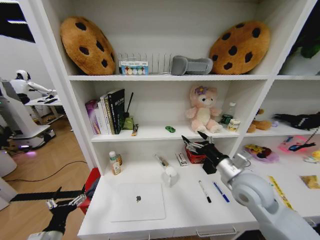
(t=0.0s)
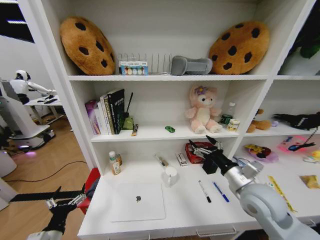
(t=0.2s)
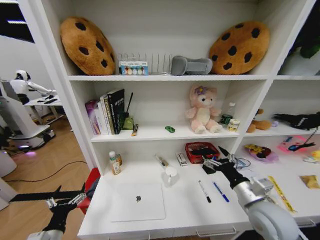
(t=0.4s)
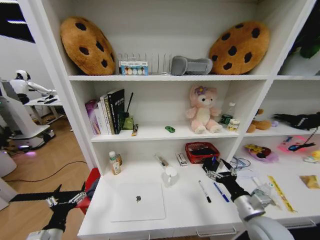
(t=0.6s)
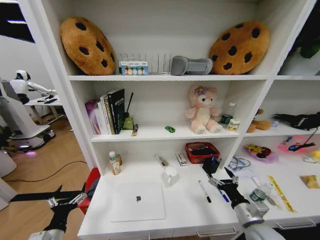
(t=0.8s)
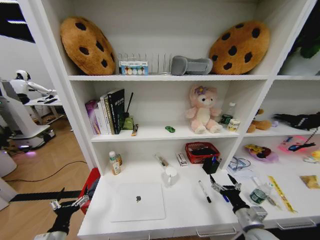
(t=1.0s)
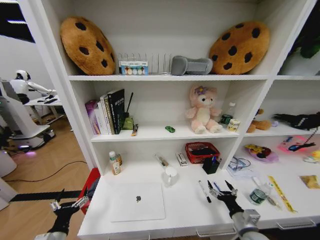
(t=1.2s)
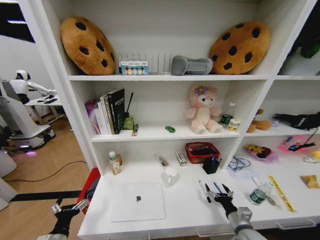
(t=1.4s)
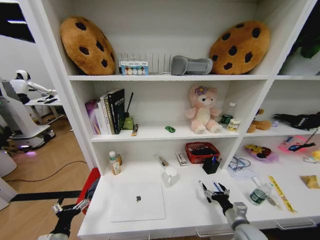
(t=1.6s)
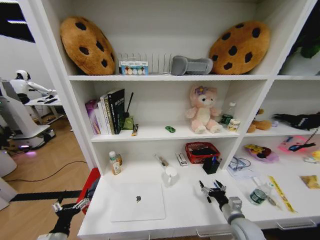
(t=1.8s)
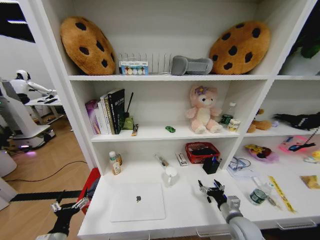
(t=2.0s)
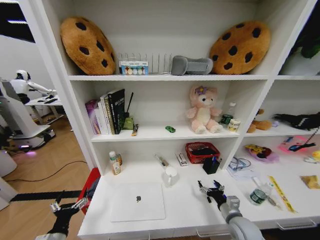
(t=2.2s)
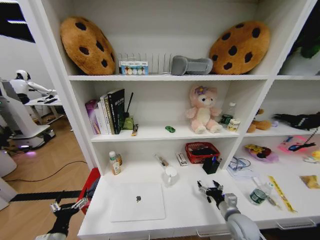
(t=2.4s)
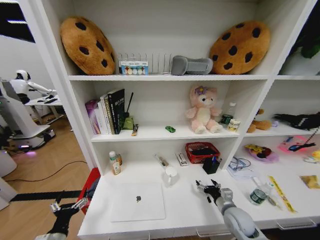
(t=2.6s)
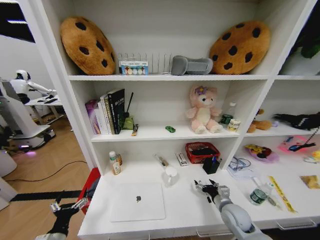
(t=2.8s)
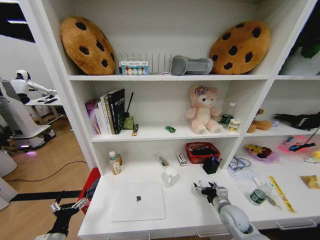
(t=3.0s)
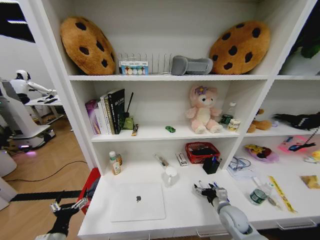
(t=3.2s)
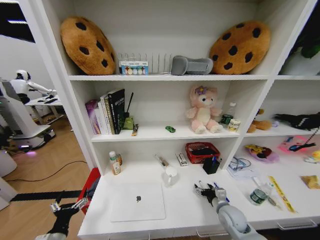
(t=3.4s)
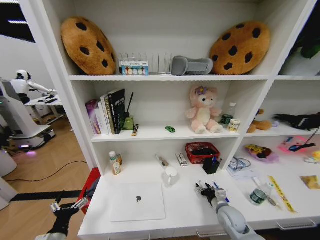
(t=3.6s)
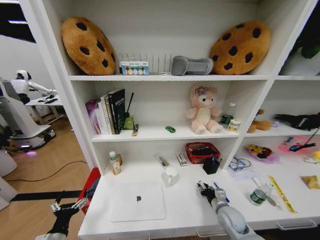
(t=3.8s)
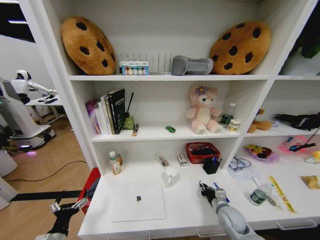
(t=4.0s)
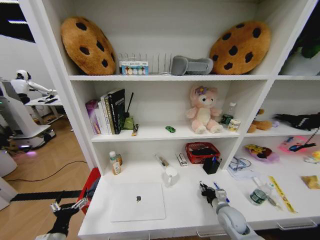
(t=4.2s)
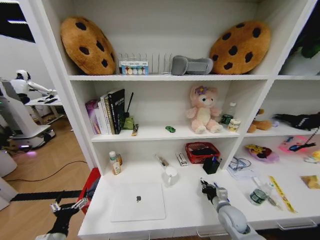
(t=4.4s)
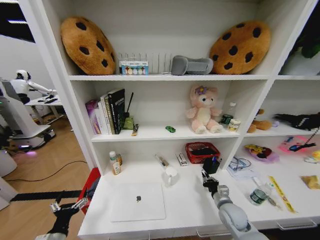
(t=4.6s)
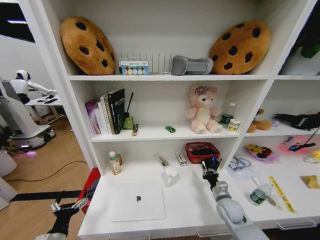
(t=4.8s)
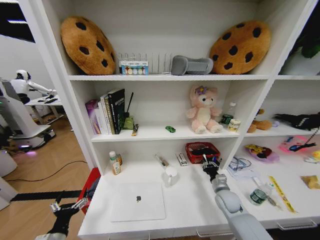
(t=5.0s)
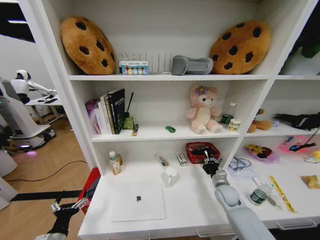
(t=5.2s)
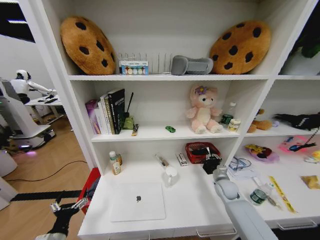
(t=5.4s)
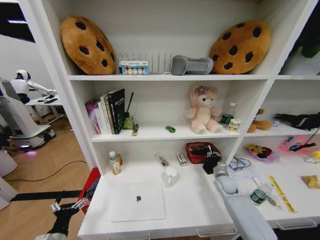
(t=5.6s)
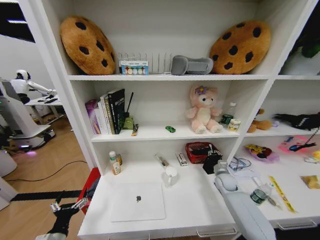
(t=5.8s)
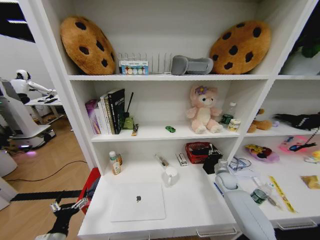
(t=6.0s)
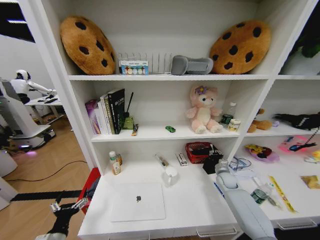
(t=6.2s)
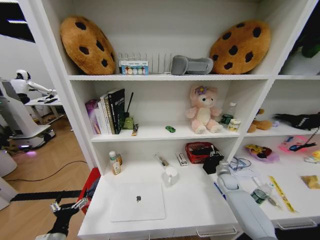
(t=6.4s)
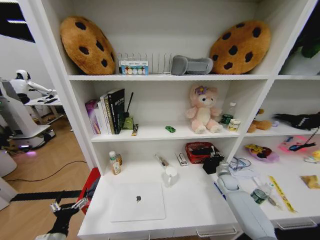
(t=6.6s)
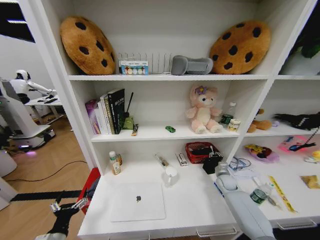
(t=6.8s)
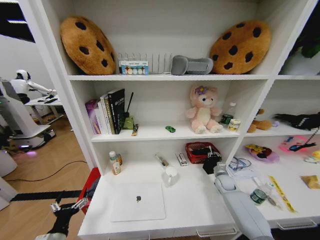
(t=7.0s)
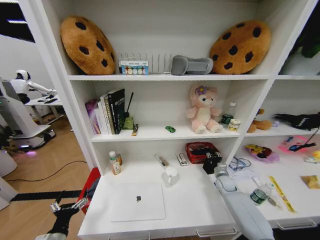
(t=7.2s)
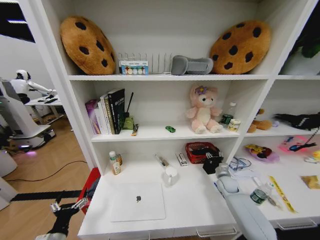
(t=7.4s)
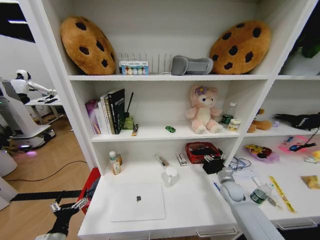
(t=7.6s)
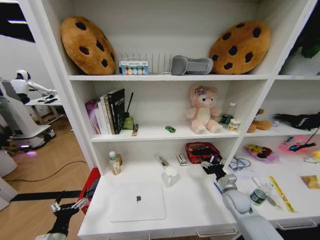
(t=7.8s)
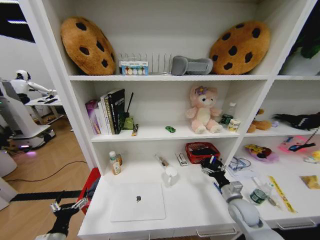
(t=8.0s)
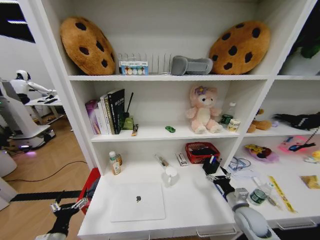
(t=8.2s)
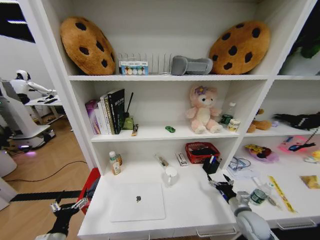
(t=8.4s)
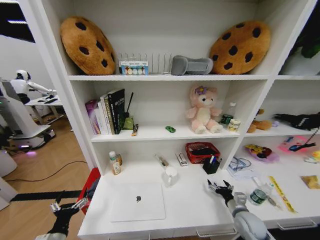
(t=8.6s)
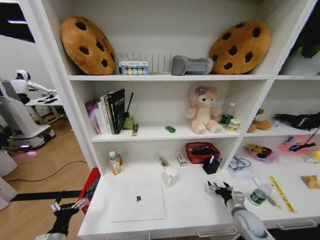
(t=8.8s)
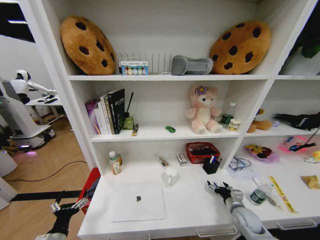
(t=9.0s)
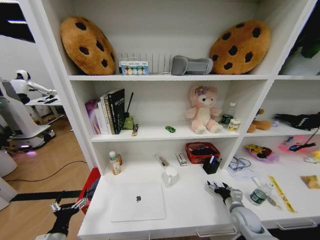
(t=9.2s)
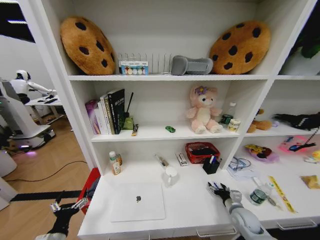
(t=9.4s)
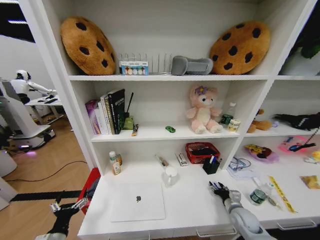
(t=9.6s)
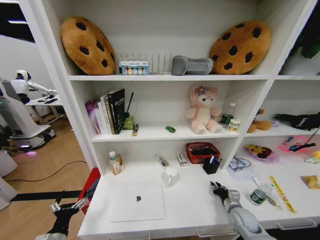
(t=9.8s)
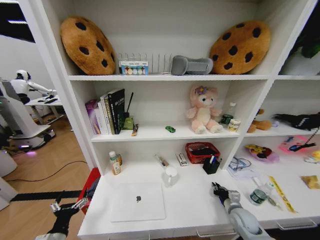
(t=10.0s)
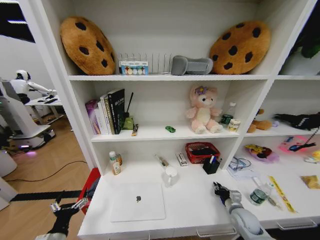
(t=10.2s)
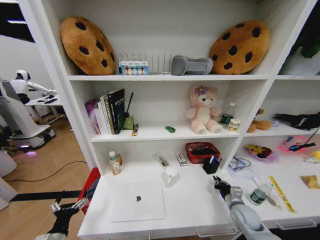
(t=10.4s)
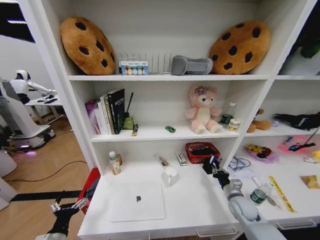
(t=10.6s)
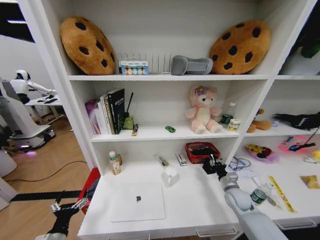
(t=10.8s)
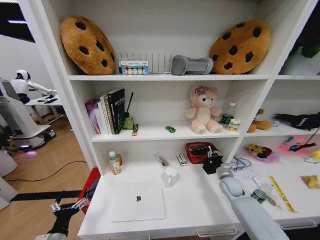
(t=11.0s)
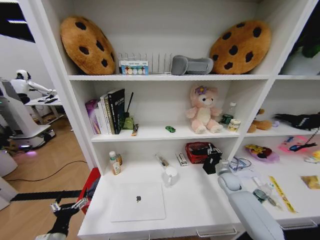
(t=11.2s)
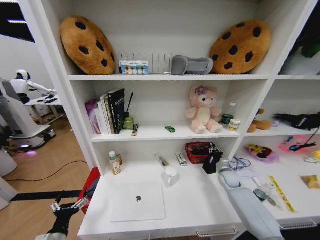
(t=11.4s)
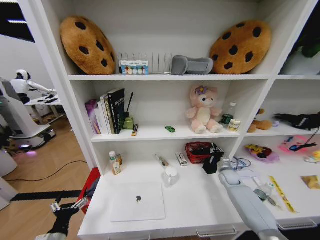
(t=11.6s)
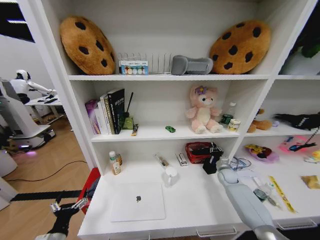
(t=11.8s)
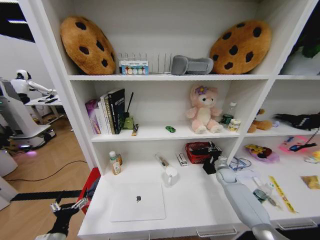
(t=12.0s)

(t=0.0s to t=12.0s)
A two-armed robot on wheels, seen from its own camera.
Task of the whole recording: Organize the objects on the table.
t=0.0s - t=1.6s: The right gripper goes about 25 cm downward.
t=1.6s - t=3.0s: The right gripper moves forward, approximately 5 cm.
t=3.0s - t=4.4s: The right gripper closes up.
t=4.4s - t=6.0s: The right gripper travels forward and to the right by about 20 cm.
t=6.0s - t=7.6s: The right gripper travels backward by some 5 cm, and opens.
t=7.6s - t=9.0s: The right gripper is displaced backward by approximately 10 cm.
t=9.0s - t=10.4s: The right gripper closes.
t=10.4s - t=12.0s: The right gripper moves forward, some 20 cm.

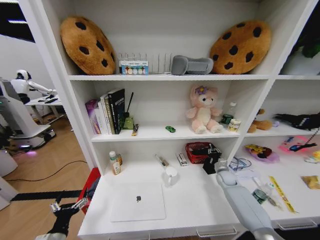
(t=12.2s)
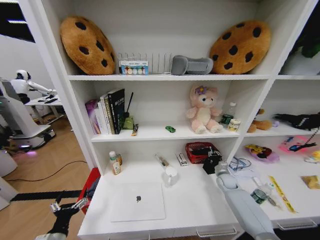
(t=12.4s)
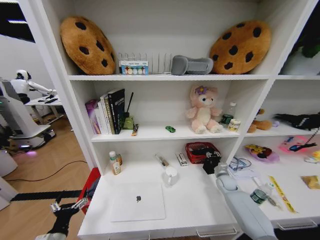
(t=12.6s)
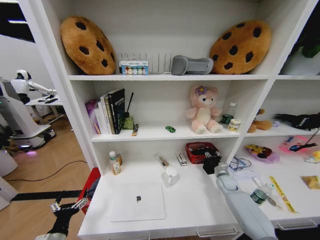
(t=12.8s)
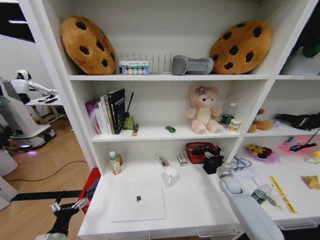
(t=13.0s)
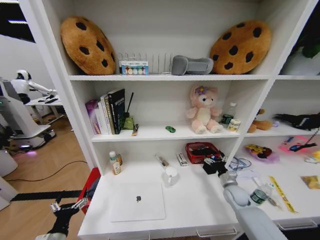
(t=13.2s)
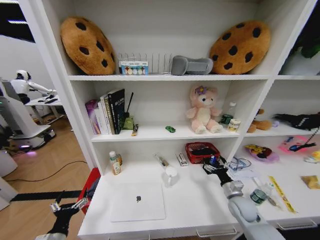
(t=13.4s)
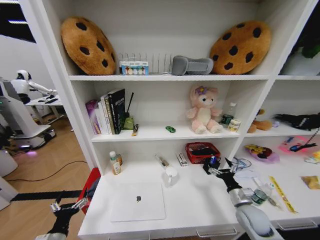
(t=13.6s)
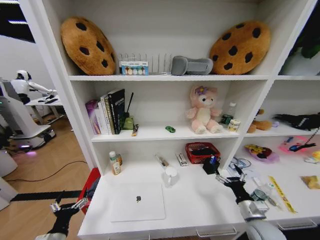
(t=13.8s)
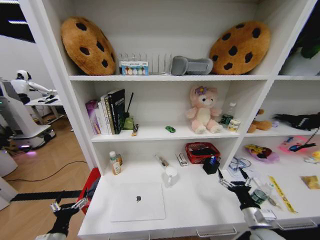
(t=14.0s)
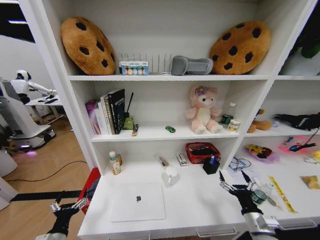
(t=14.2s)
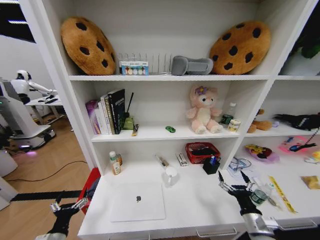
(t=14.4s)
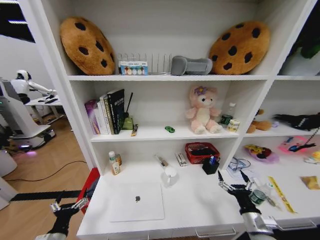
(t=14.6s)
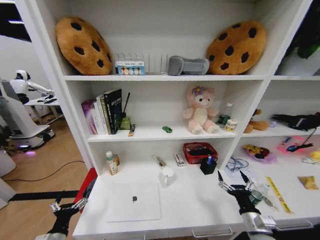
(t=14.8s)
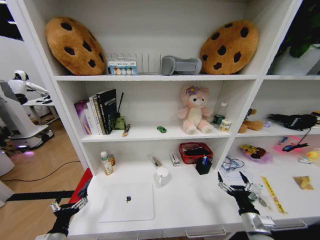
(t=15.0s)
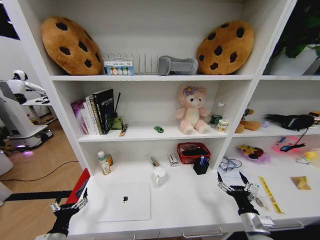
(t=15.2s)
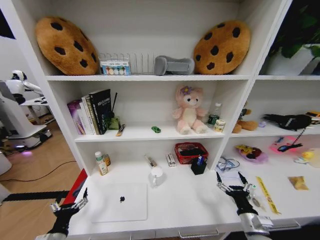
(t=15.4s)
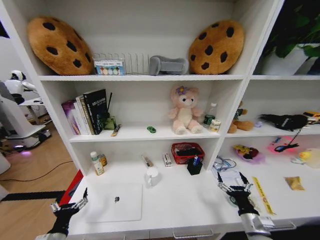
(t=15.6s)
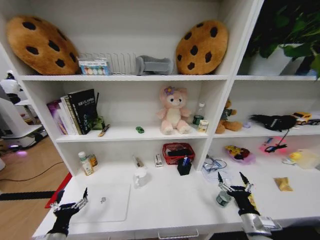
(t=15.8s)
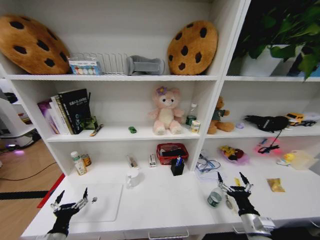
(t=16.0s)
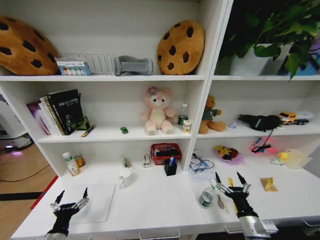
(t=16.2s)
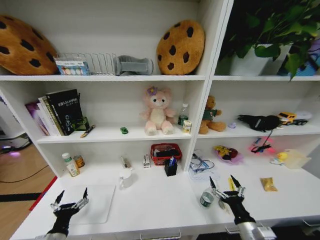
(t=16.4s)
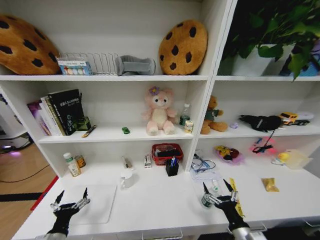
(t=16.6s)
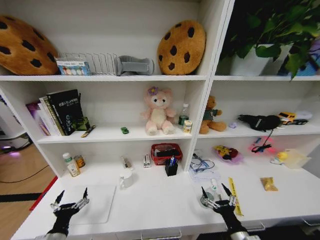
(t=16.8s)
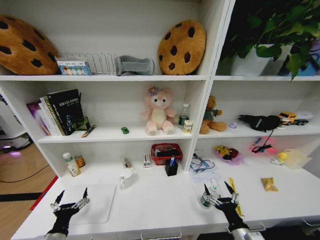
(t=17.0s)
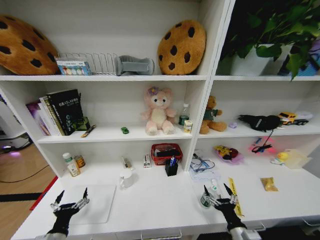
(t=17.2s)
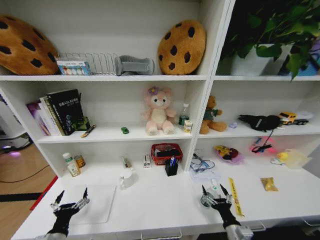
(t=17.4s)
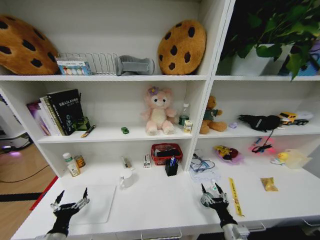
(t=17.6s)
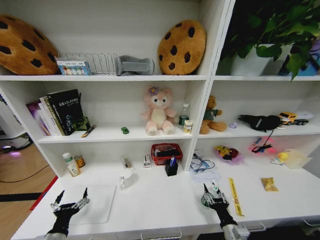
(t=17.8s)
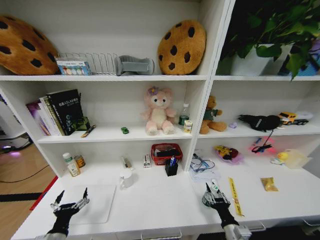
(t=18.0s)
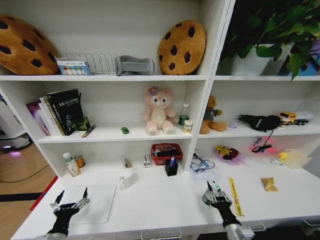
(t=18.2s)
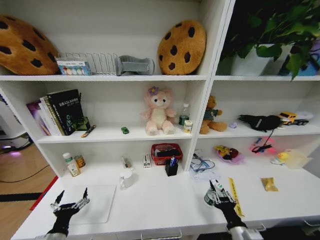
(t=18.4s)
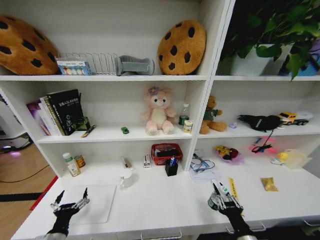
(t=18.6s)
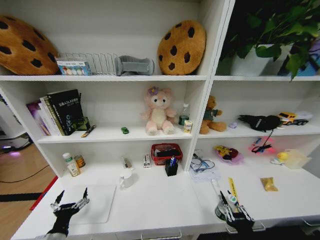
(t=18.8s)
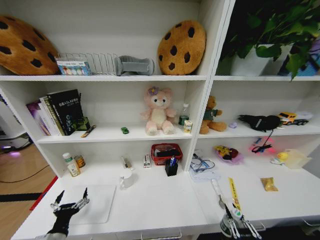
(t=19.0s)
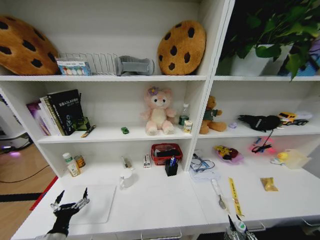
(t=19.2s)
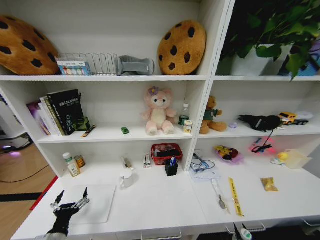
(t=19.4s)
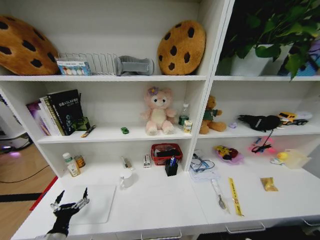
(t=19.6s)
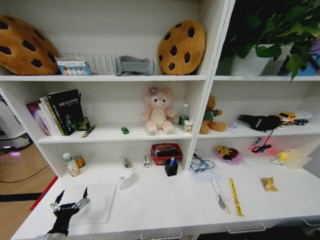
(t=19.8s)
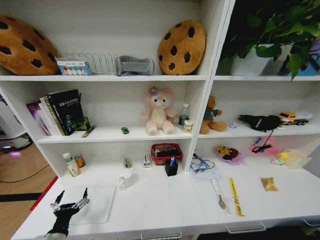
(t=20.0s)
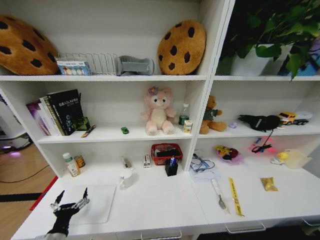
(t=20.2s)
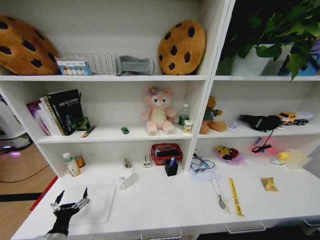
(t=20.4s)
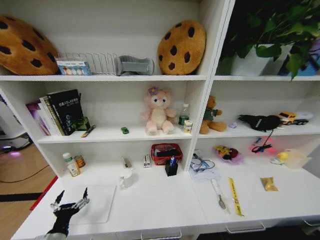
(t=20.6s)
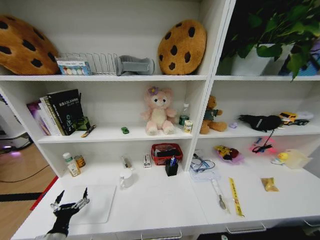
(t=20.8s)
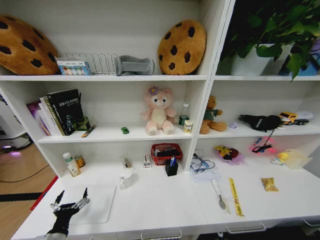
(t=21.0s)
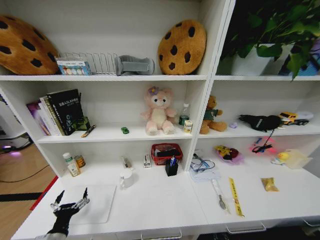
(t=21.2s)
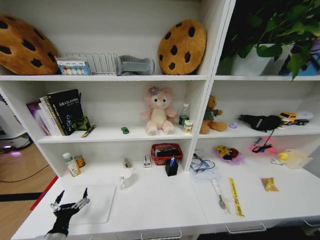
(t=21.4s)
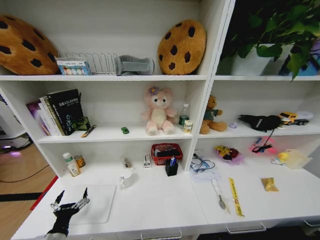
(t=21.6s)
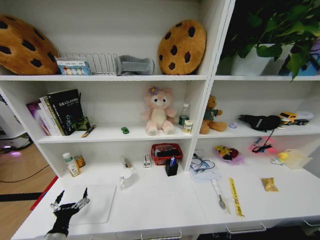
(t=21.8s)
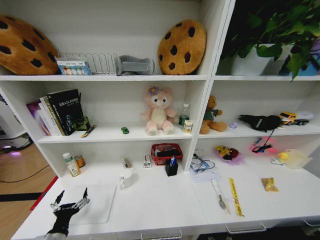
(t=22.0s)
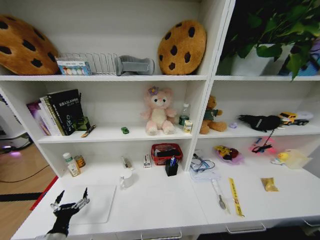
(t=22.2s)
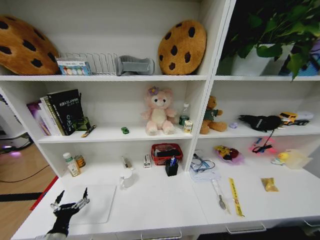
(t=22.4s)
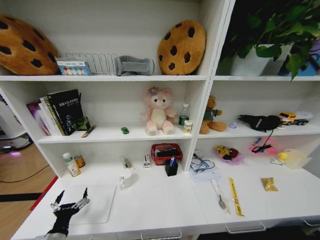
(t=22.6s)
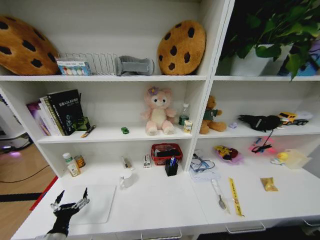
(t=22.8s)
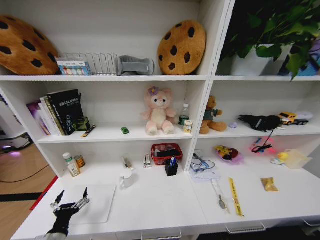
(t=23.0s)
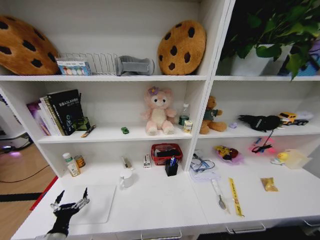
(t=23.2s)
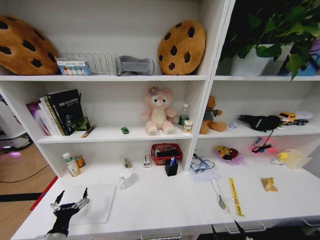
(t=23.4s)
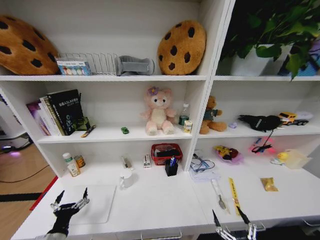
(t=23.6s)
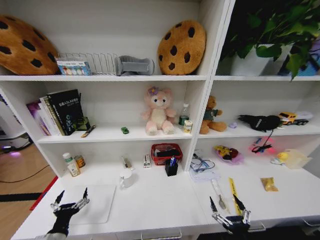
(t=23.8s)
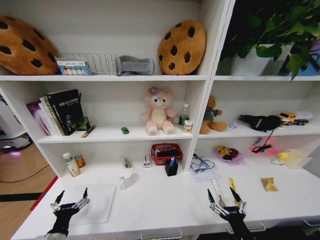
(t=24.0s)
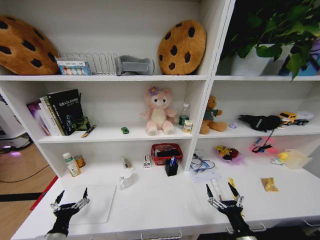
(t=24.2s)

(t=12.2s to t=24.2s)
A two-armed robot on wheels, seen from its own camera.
Task of the whole recording: Organize the objects on the table.
t=12.2s - t=13.8s: The right gripper travels backward by some 25 cm, and opens up.
t=15.2s - t=16.6s: The right gripper moves about 5 cm.
t=16.6s - t=18.2s: The right gripper closes.
t=18.2s - t=19.8s: The right gripper is displaced backward by approximately 20 cm.
t=22.6s - t=24.2s: The right gripper heads upward and forward, covering approximately 35 cm.
